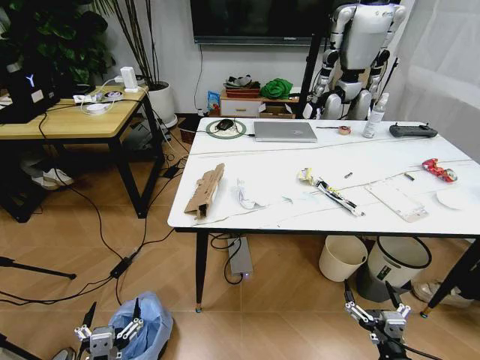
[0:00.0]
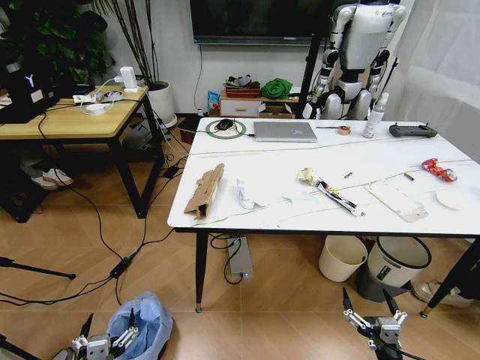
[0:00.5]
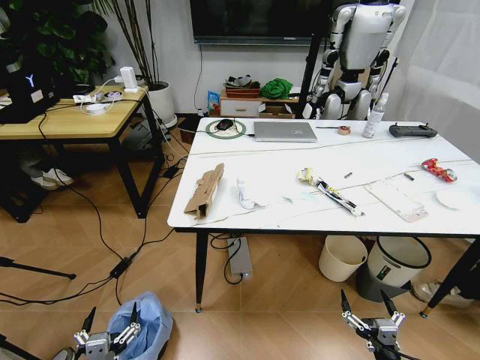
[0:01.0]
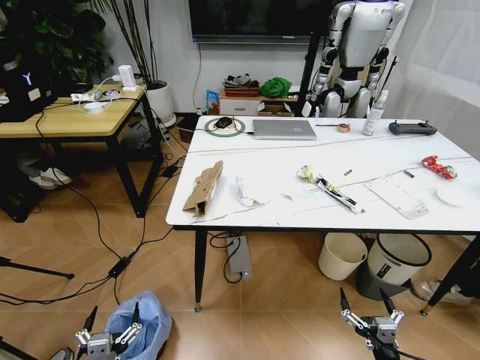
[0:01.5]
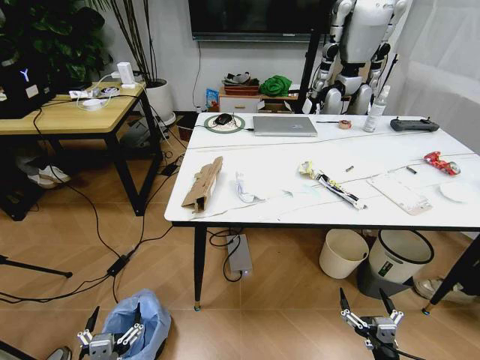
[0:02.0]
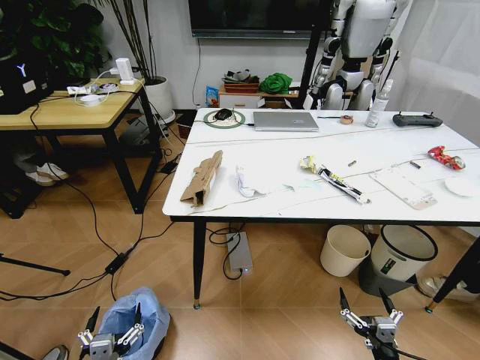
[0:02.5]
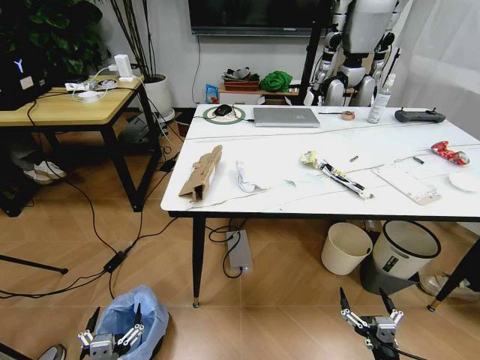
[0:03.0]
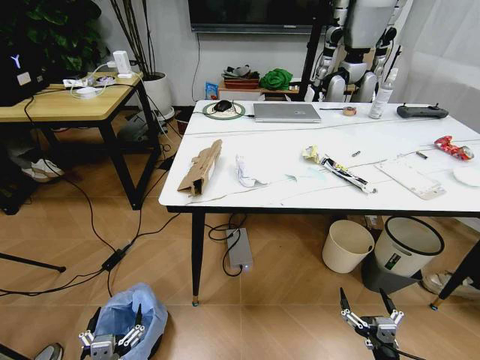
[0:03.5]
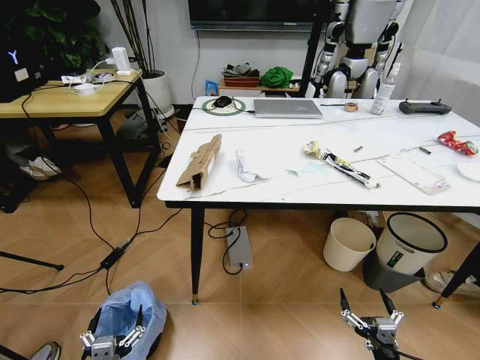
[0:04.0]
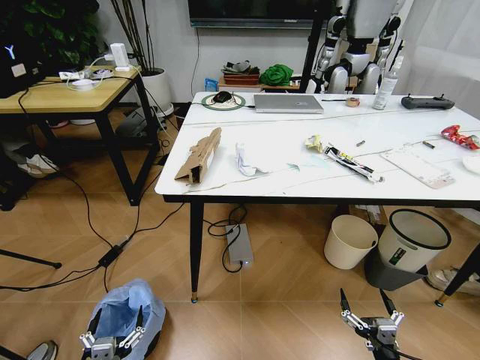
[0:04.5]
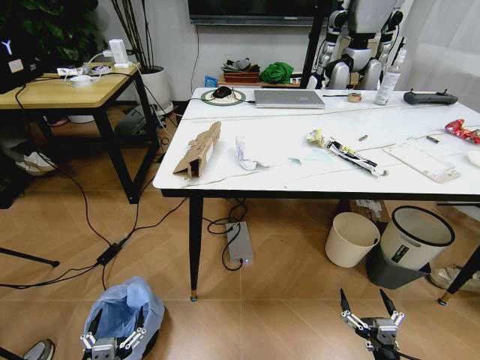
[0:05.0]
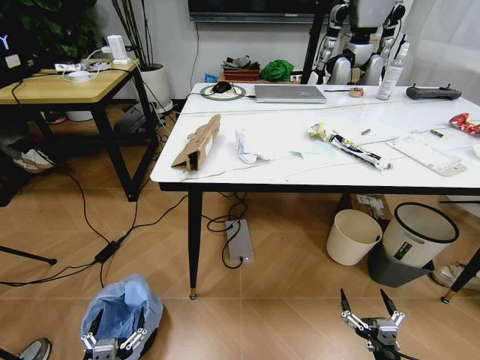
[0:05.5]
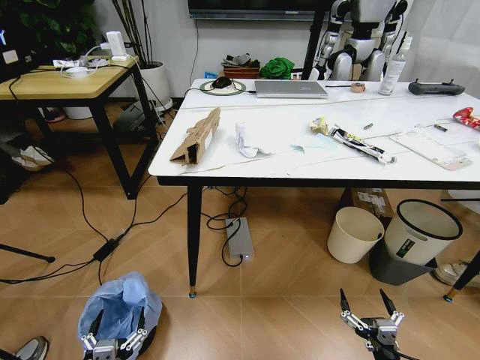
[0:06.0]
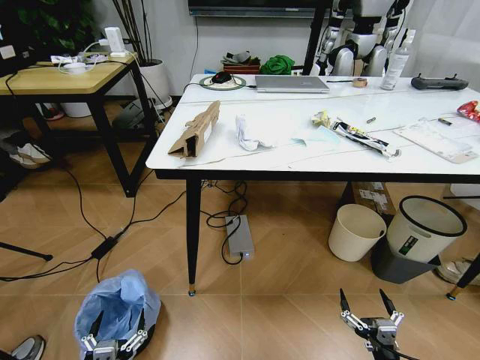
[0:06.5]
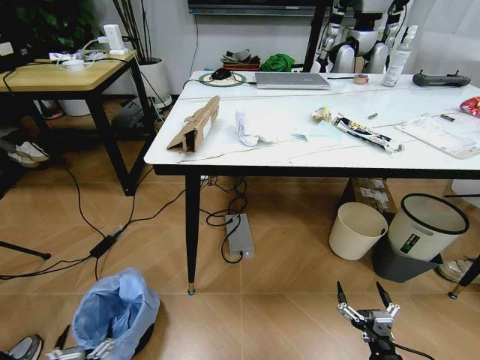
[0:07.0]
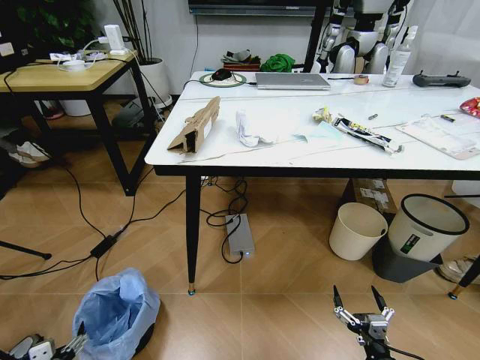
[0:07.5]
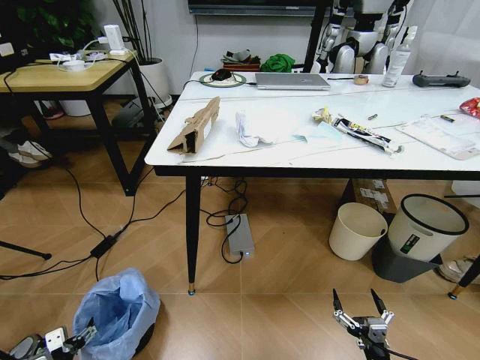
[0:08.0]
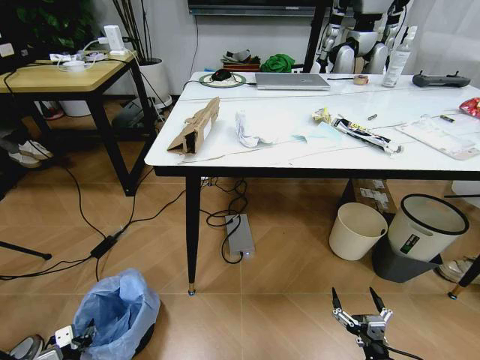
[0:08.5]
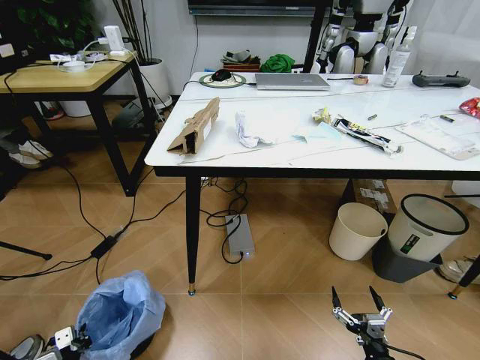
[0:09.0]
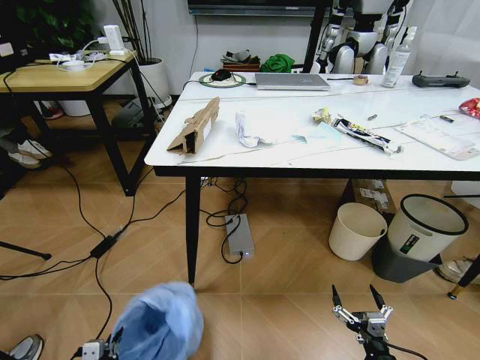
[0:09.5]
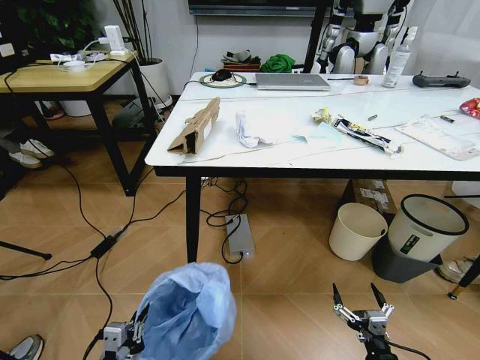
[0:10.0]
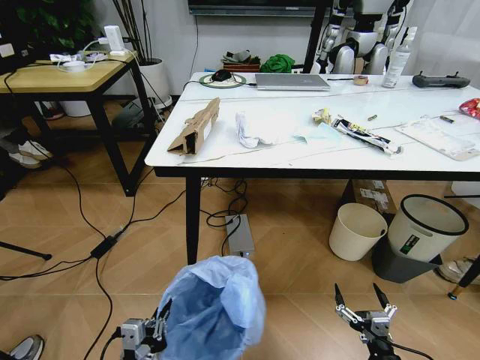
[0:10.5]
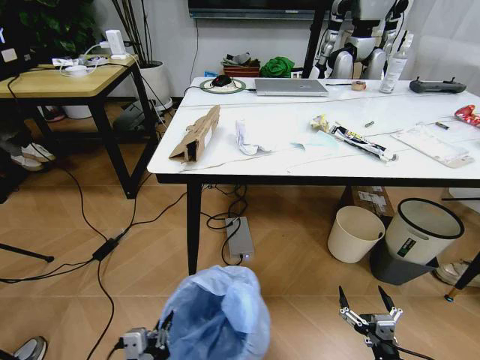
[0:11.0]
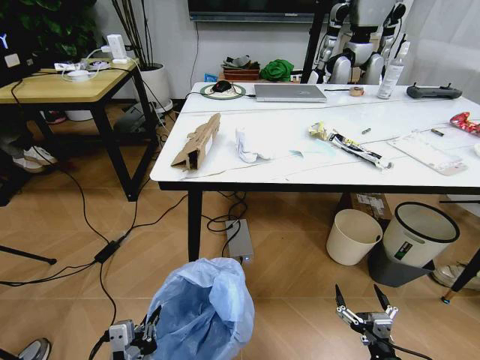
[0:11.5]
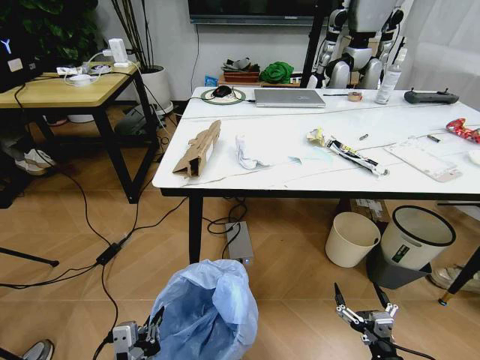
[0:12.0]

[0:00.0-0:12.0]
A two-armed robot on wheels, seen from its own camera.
Task of the whole recording: Pick up the trash bin and place the trash from the table into it.
0:06.0 to 0:08.0: The left gripper is displaced to the left and forward by approximately 20 cm.
0:08.0 to 0:10.0: The left gripper moves to the right, upward and backward, roughly 20 cm, and closes.
0:10.0 to 0:12.0: The left gripper is displaced upward and to the right by roughly 10 cm.

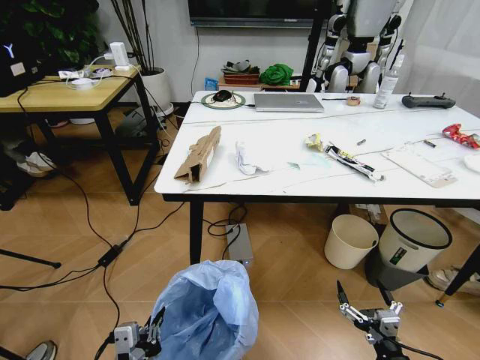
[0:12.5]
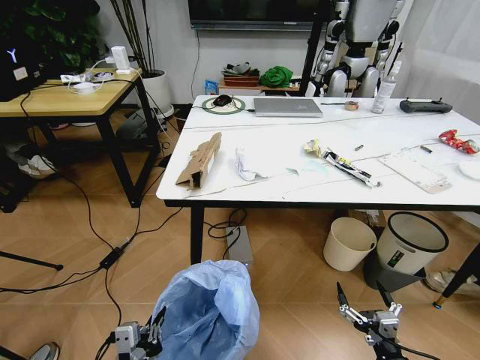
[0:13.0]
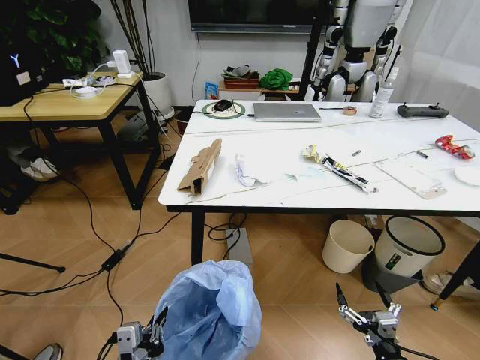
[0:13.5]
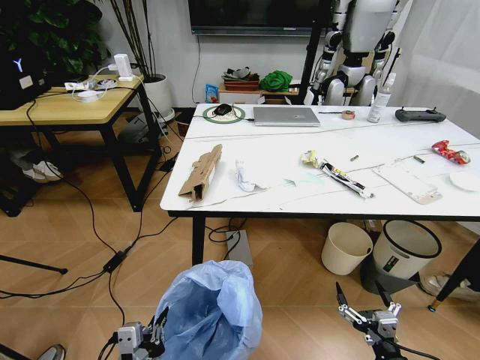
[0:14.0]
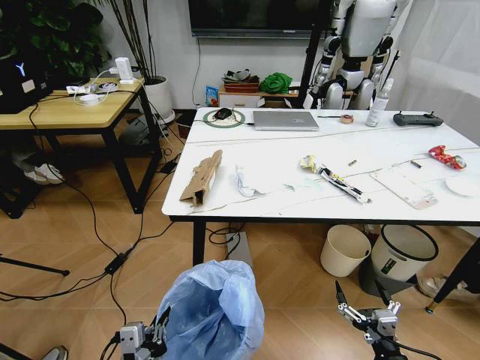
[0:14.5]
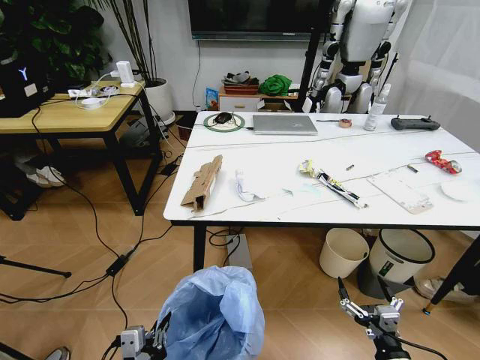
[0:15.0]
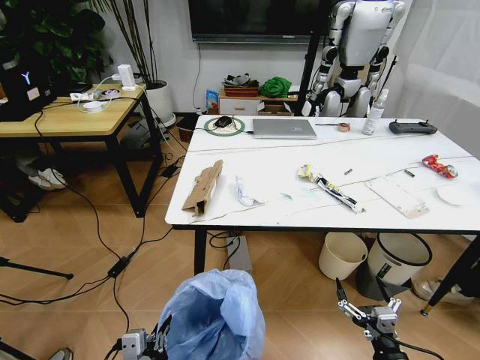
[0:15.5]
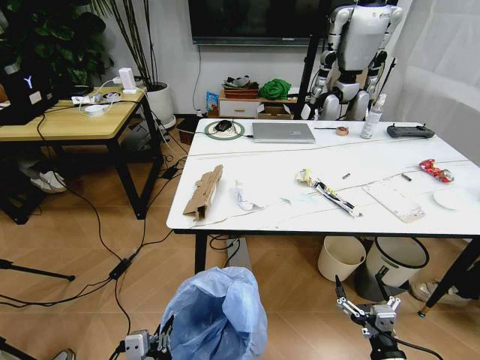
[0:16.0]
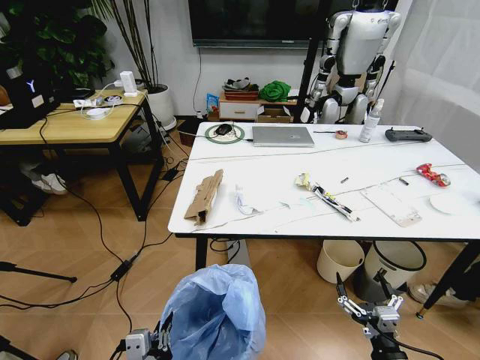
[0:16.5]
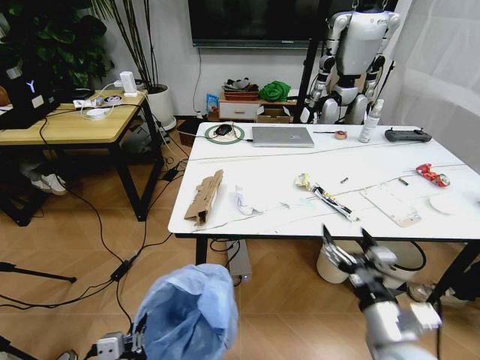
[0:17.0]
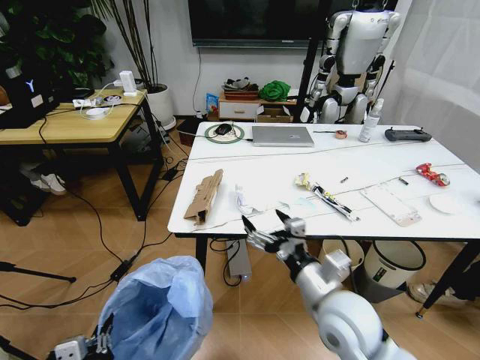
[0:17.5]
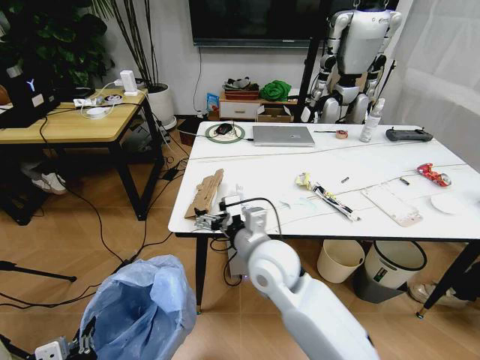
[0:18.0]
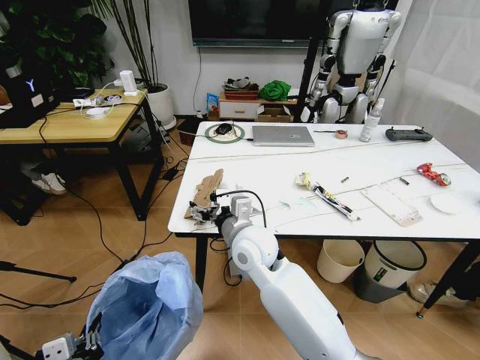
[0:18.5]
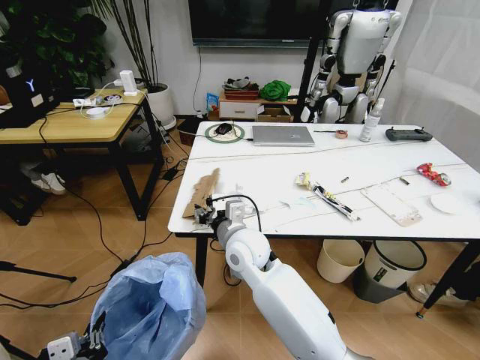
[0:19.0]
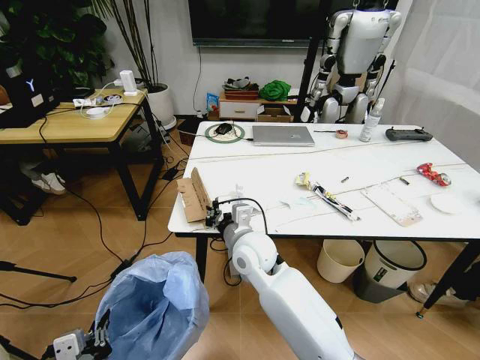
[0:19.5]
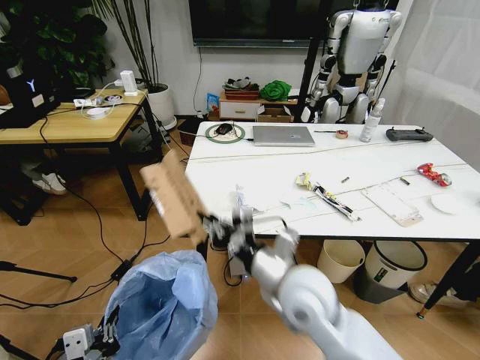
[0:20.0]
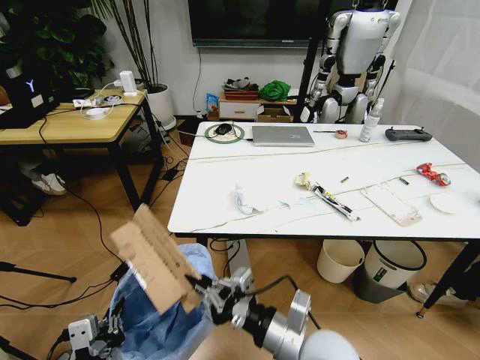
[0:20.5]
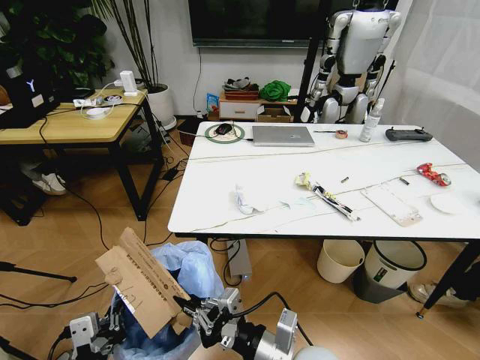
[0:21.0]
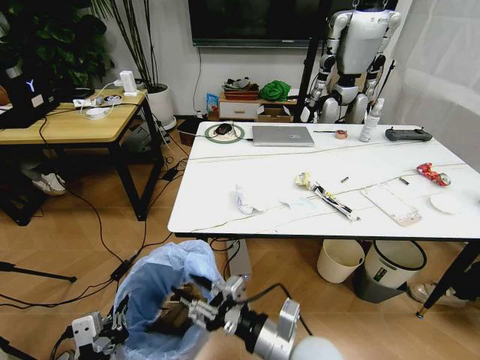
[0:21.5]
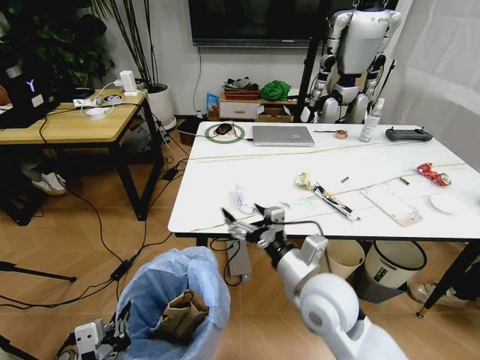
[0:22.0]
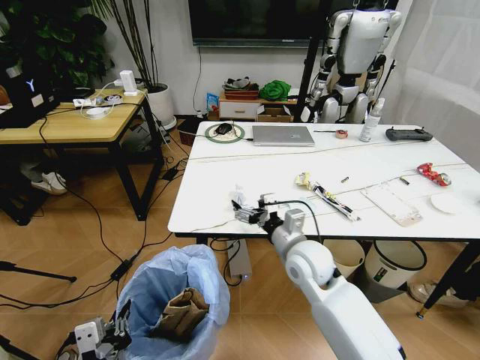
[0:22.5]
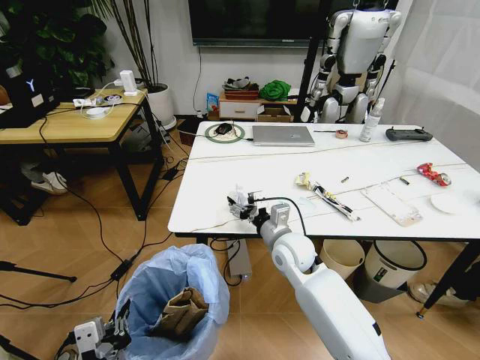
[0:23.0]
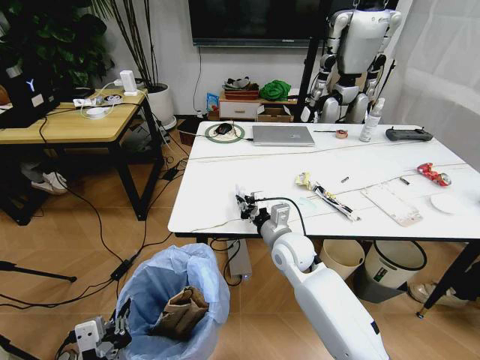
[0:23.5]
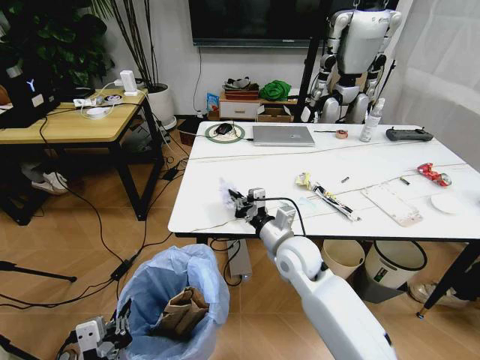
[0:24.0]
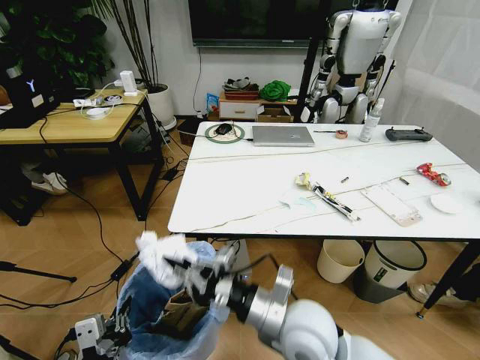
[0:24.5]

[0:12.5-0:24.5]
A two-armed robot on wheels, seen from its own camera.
Task of the whole recording: Pick up the trash bin and place the trash from the table into it.
0:16.5 to 0:18.5: The right gripper goes approximately 40 cm to the left, forward and upward; the left gripper shifts some 10 cm to the left.
0:18.5 to 0:20.5: The right gripper is displaced backward and to the right by about 20 cm, and closes up.
0:20.5 to 0:22.5: The right gripper heads forward, covering some 20 cm, and opens up.
0:22.5 to 0:24.5: The right gripper heads backward, covering about 15 cm, and closes up.

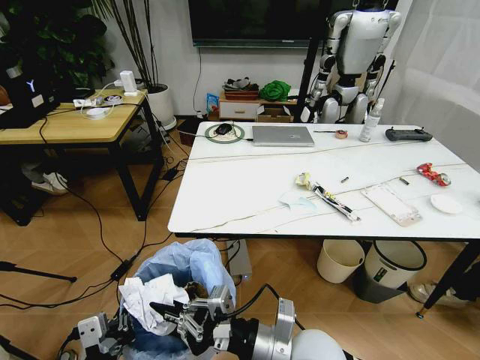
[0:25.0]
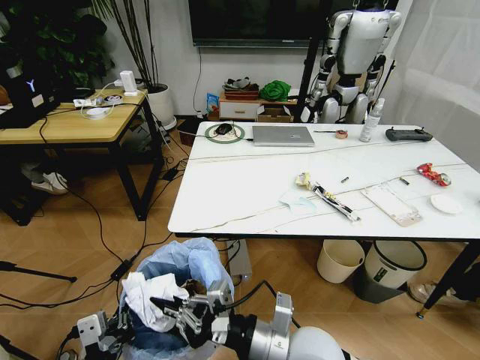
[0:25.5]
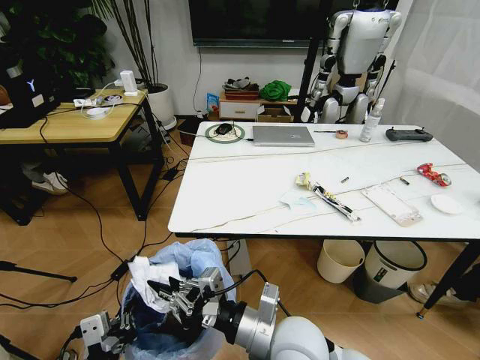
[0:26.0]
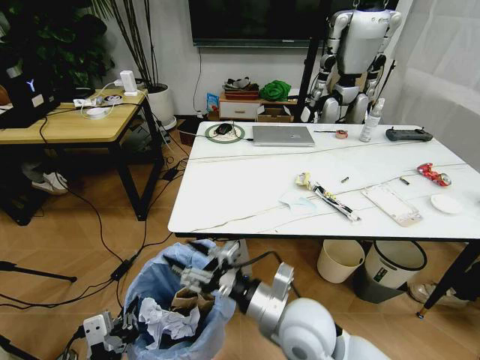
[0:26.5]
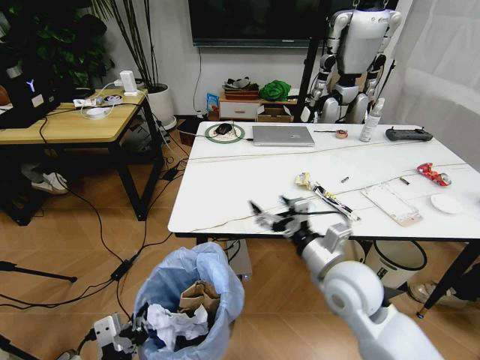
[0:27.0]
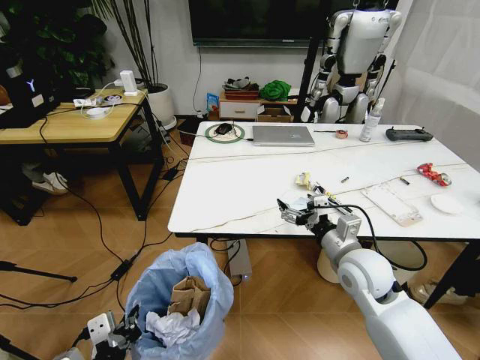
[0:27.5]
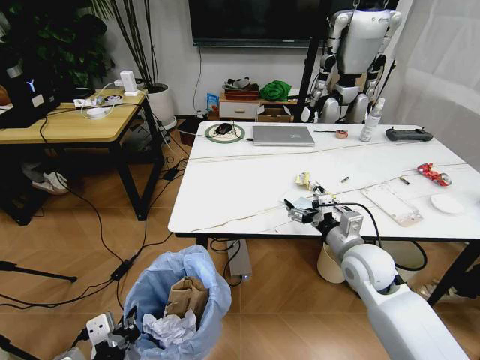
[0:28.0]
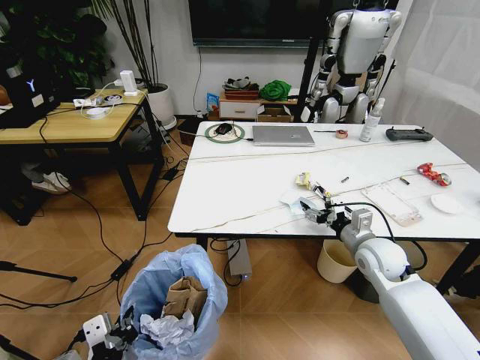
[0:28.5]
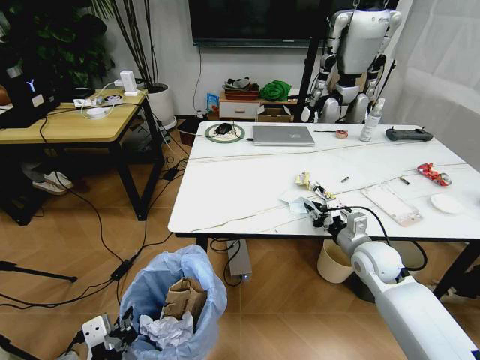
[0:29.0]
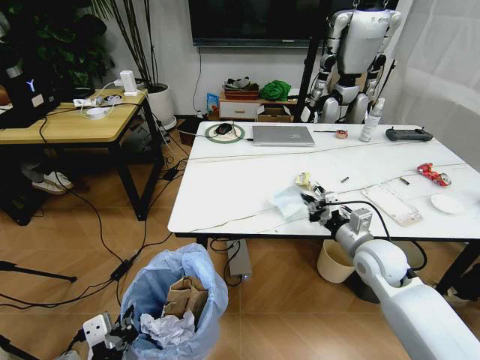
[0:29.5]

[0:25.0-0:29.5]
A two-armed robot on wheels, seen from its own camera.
Task of the whole recording: Pick up the trash bin and place the trash from the table into it.
0:25.0 to 0:27.0: The right gripper is displaced forward and to the right by about 15 cm, and opens.
0:27.0 to 0:29.5: The right gripper shifts some 15 cm to the right and forward, and closes its fingers.
